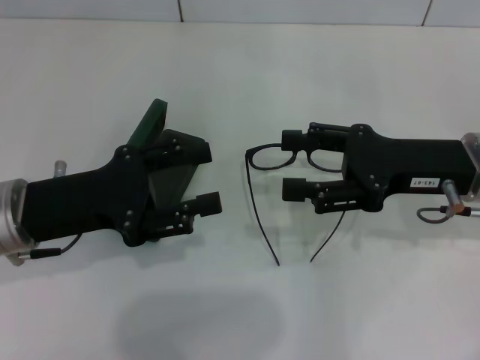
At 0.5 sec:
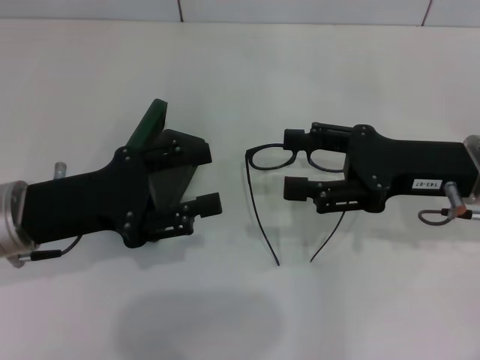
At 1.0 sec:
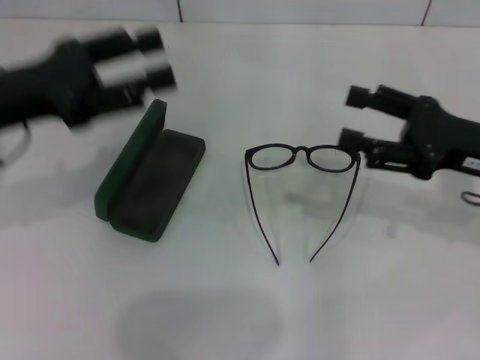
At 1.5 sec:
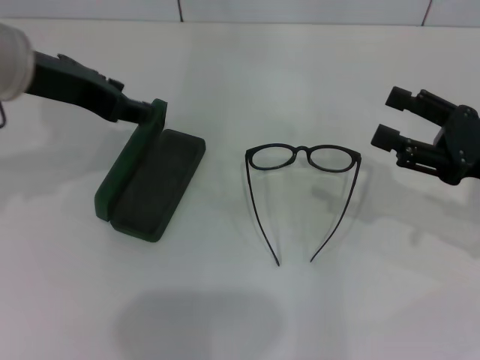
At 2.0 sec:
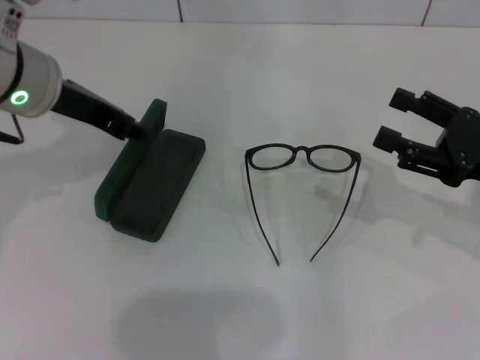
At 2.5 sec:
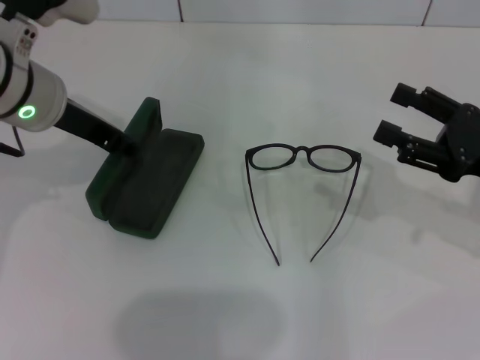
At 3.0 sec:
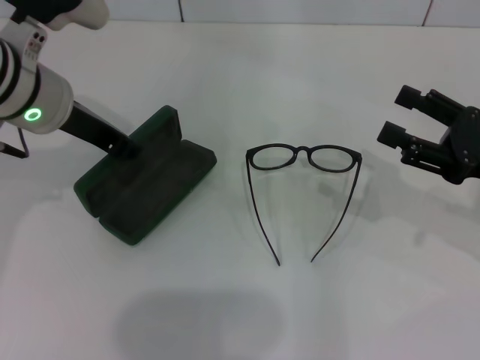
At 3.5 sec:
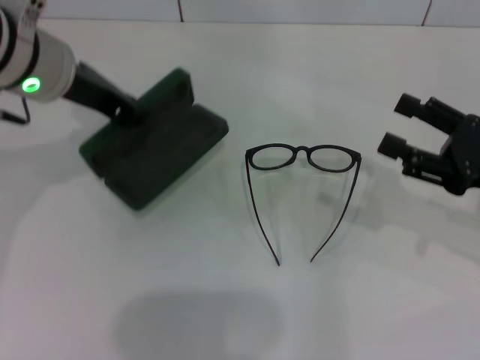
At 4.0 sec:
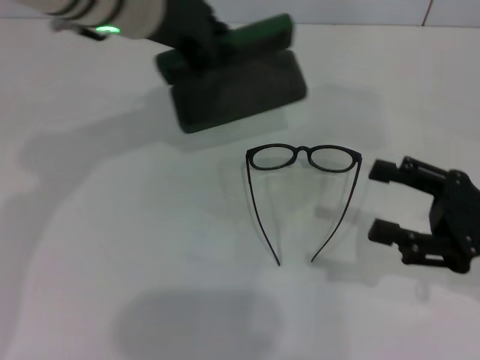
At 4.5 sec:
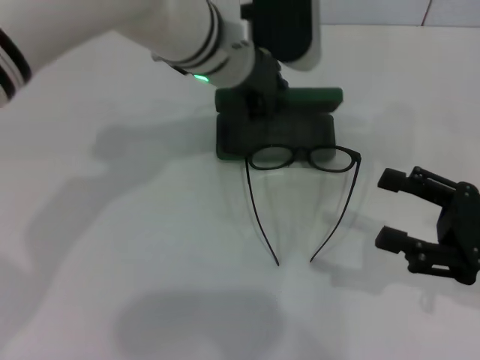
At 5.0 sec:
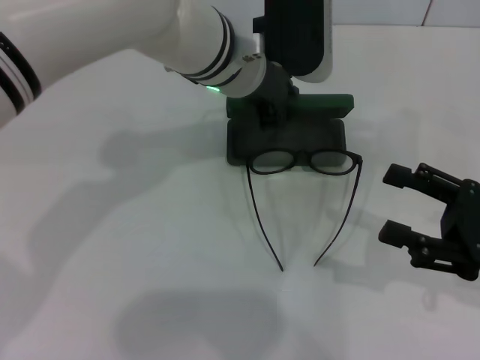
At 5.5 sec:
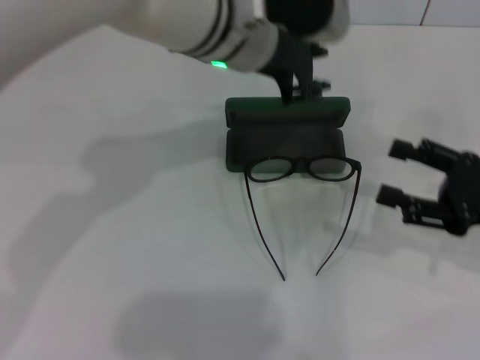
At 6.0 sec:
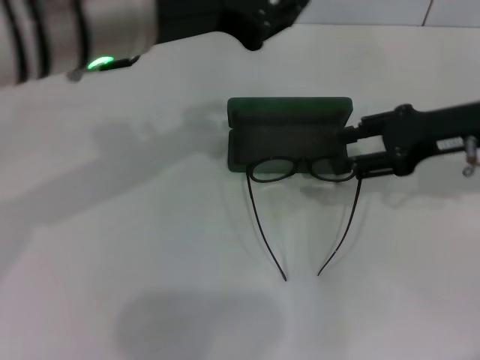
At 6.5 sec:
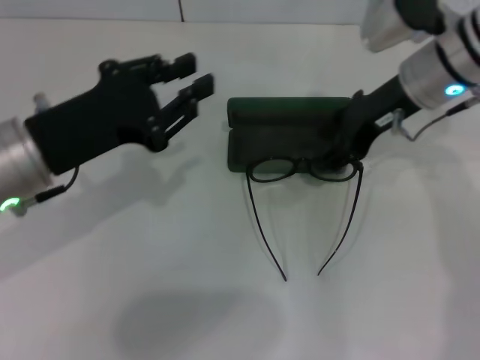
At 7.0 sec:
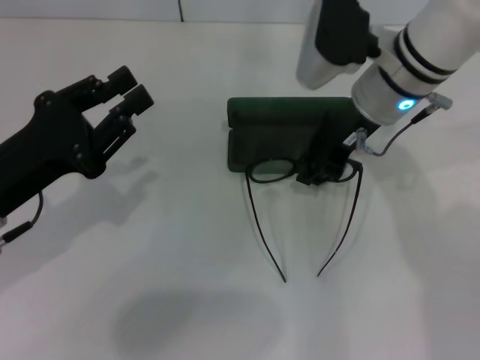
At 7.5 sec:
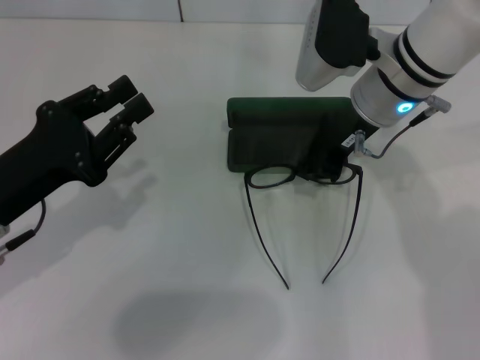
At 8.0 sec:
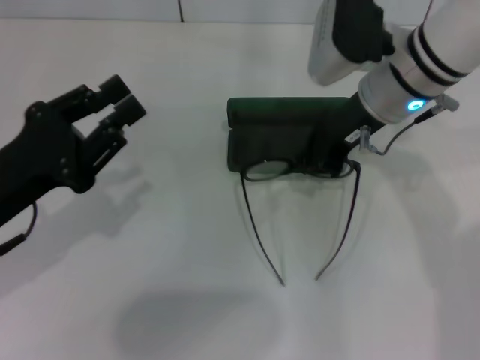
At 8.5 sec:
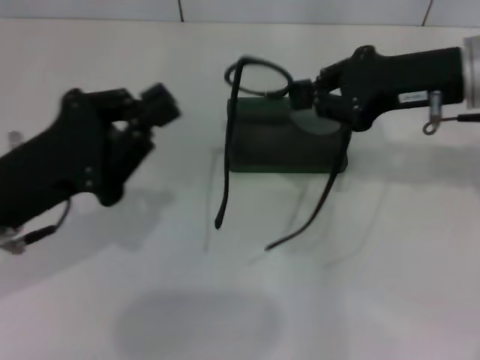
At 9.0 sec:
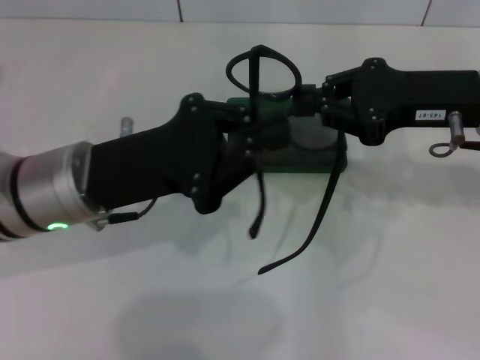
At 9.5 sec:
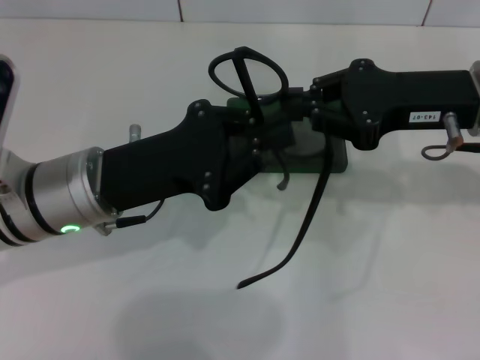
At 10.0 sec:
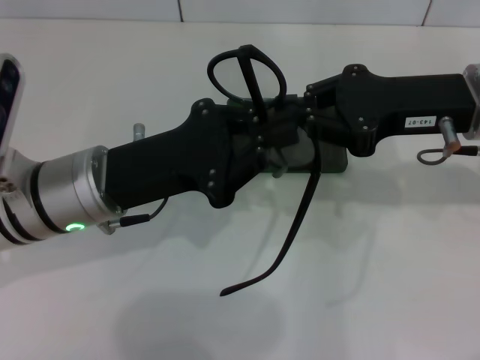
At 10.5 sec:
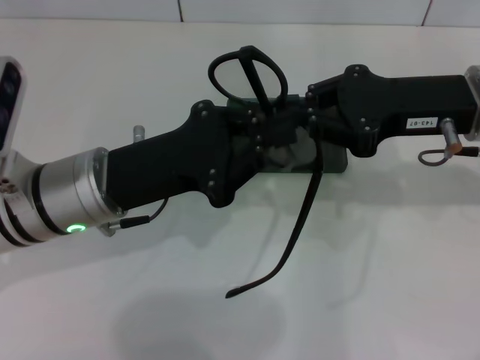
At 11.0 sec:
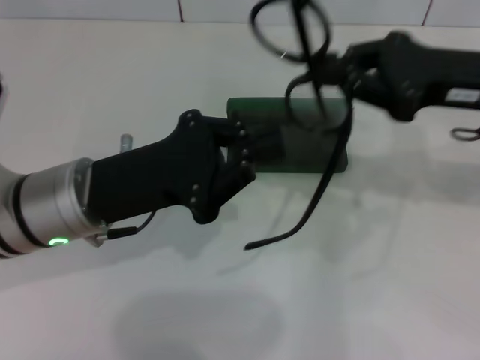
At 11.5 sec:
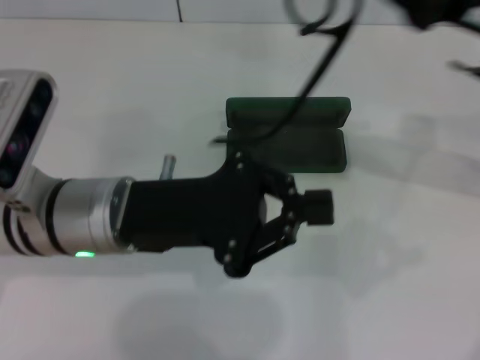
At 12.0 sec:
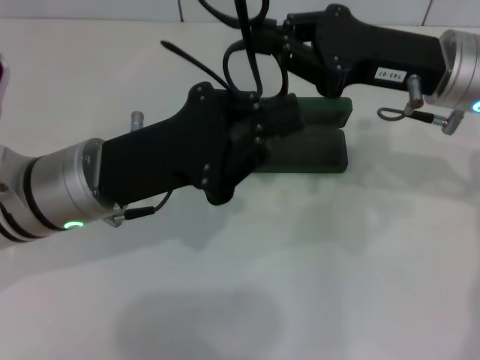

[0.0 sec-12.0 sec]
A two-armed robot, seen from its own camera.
Step, 0.0 sec to 2.5 sec: Grab the glasses case with your left hand.
Step, 3.0 sec to 5.0 sec: Place the glasses case in the center of the table with your left hand.
Step, 5.5 sec to 7.5 sec: Grab the eyeglass frame with your right hand.
0.0 sec to 2.0 sec: The right gripper moves to the right, approximately 10 cm, while the left gripper heads upward and forward, covering roughly 15 cm.
2.0 sec to 4.0 sec: The left gripper travels to the right by approximately 10 cm, and closes its fingers.
4.0 sec to 6.0 sec: The right gripper shifts roughly 15 cm forward and upward. Meanwhile the left gripper heads backward, covering about 10 cm, and goes to the right and returns, roughly 10 cm each way.
6.0 sec to 8.0 sec: The right gripper heads to the left, covering about 15 cm, and closes, while the left gripper goes approximately 20 cm downward, to the left and backward.
8.0 sec to 10.0 sec: The right gripper is displaced to the right and backward by some 10 cm; the left gripper goes about 10 cm to the right and forward, and closes its fingers.

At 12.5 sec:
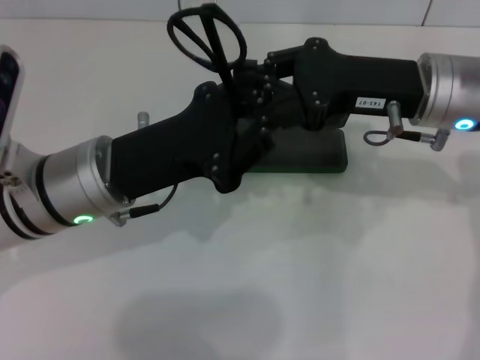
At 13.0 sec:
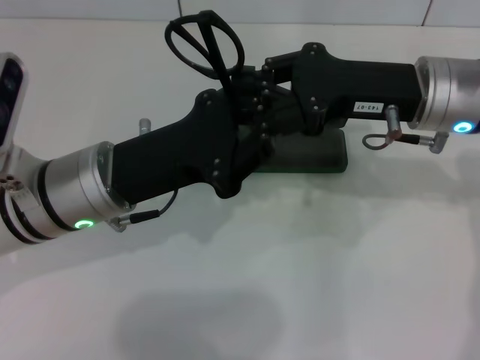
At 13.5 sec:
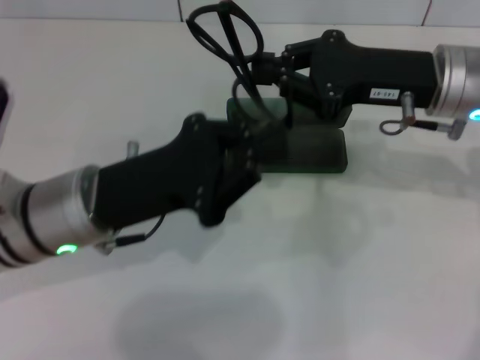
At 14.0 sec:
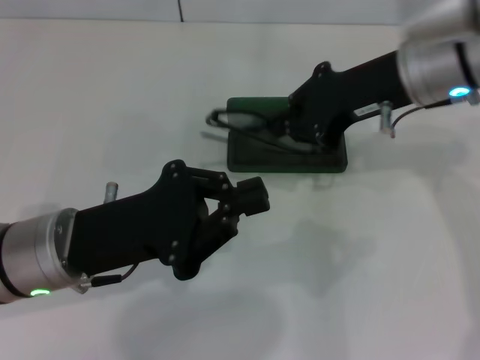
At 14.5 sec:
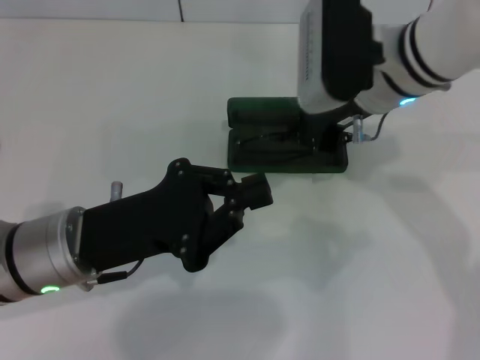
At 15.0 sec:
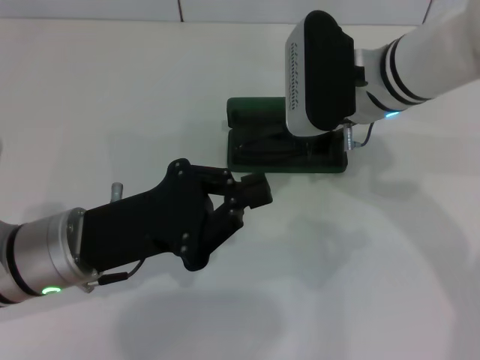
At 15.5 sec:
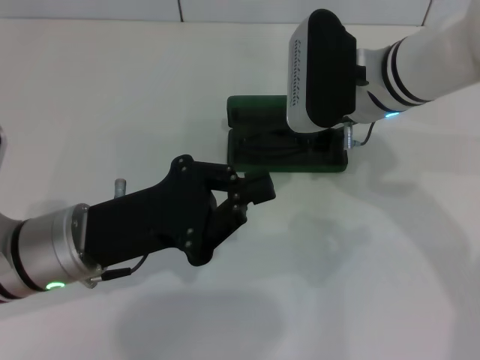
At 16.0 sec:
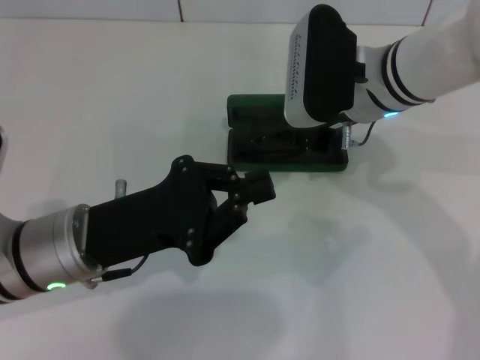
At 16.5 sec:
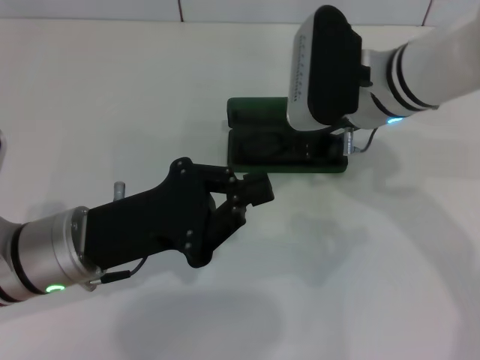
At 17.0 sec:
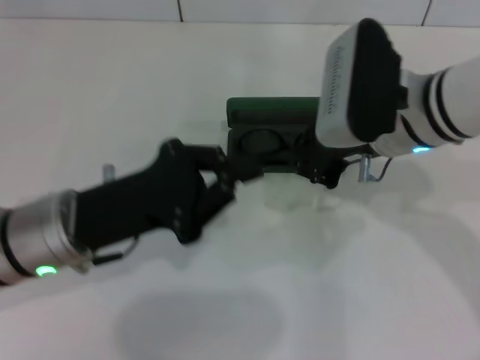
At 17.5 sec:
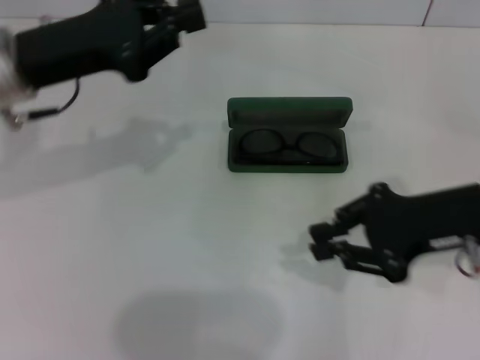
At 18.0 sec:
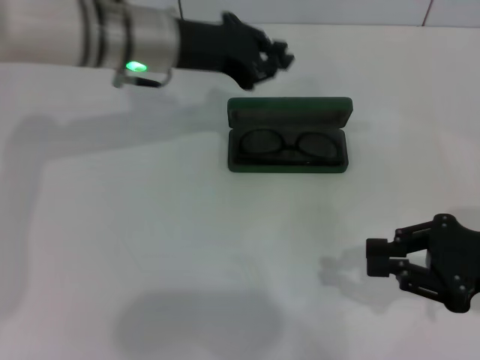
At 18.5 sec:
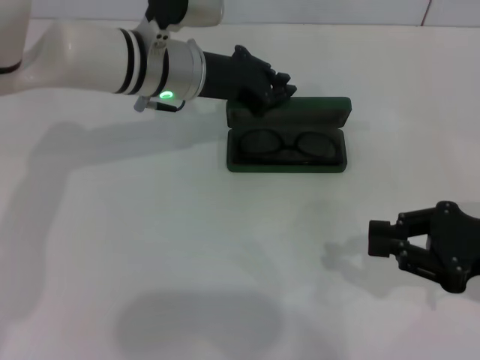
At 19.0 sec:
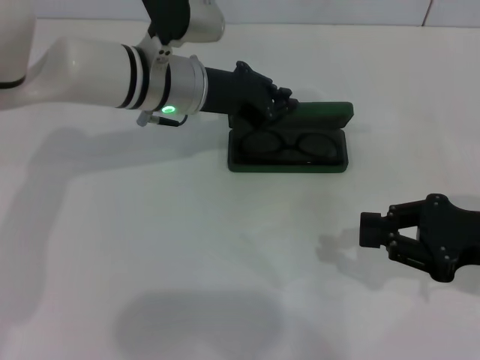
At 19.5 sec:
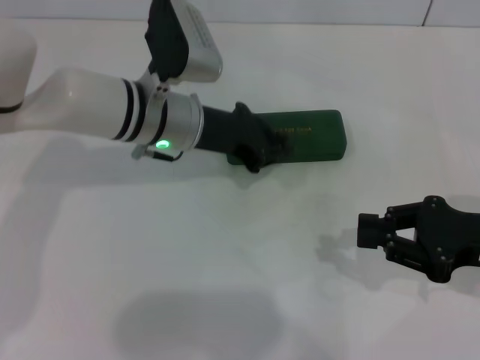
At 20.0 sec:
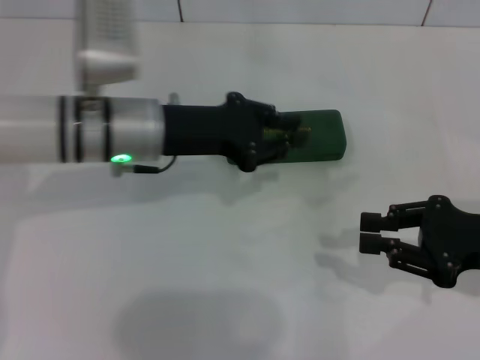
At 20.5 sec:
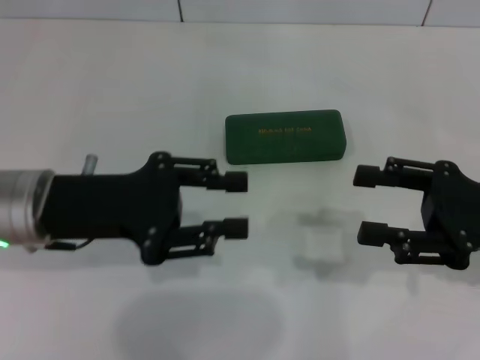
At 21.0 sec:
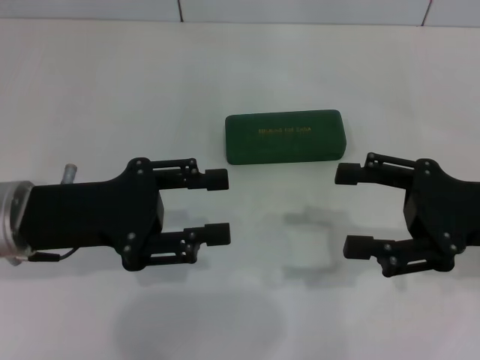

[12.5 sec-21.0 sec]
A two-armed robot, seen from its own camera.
Step, 13.5 sec to 16.0 sec: Put the glasses into the case with your right hand.
Step, 16.5 sec to 19.0 sec: Close the glasses case with your left hand.
12.5 sec to 14.5 sec: The right gripper travels to the left by approximately 5 cm, while the left gripper shifts by roughly 5 cm.
14.5 sec to 16.5 sec: The grippers stay close to where they were, moving slightly.
16.5 sec to 19.0 sec: The left gripper moves forward and to the right, approximately 20 cm. Meanwhile the right gripper goes approximately 20 cm to the right and backward.
19.0 sec to 21.0 sec: The left gripper goes about 20 cm backward and to the left, and opens up. Meanwhile the right gripper opens up.

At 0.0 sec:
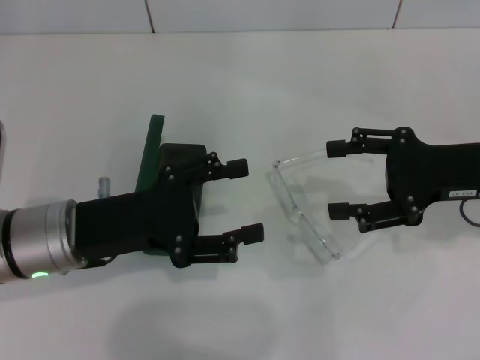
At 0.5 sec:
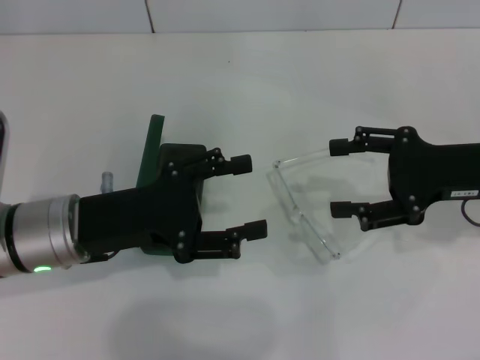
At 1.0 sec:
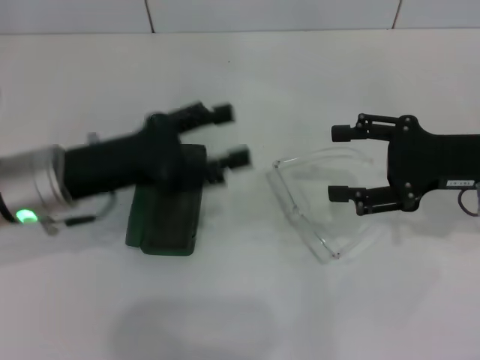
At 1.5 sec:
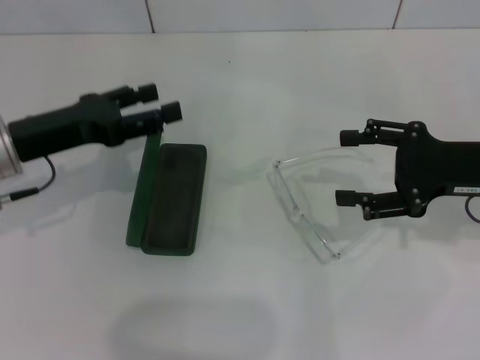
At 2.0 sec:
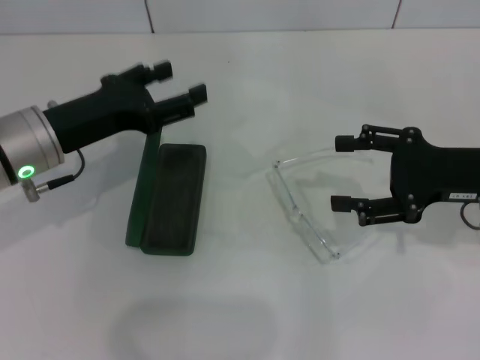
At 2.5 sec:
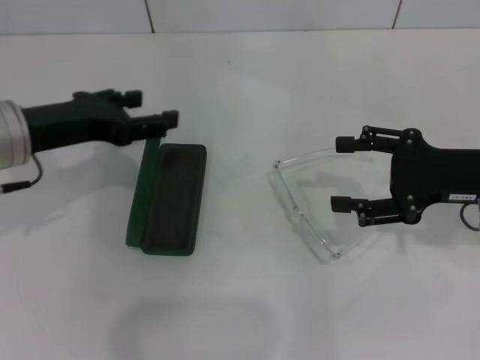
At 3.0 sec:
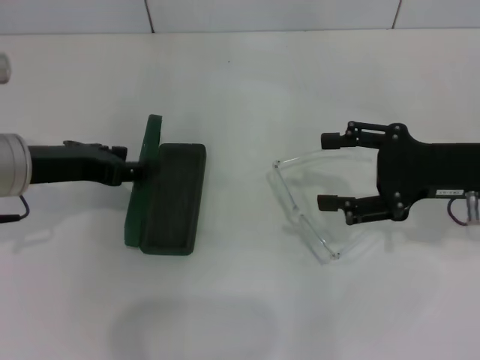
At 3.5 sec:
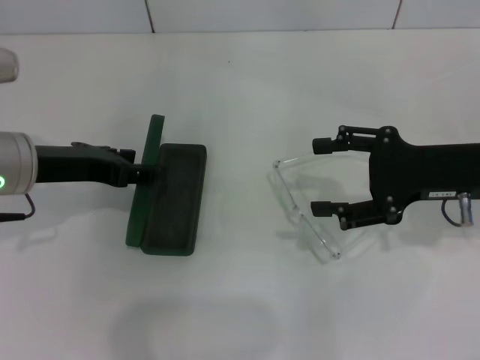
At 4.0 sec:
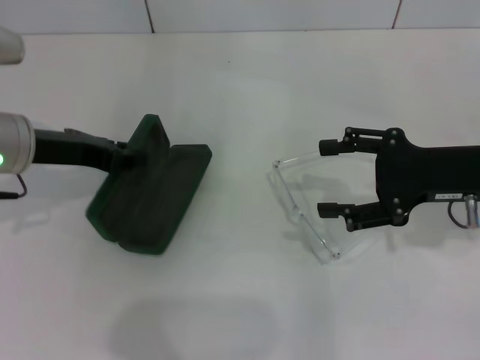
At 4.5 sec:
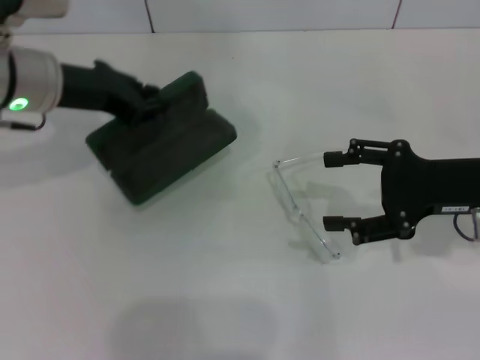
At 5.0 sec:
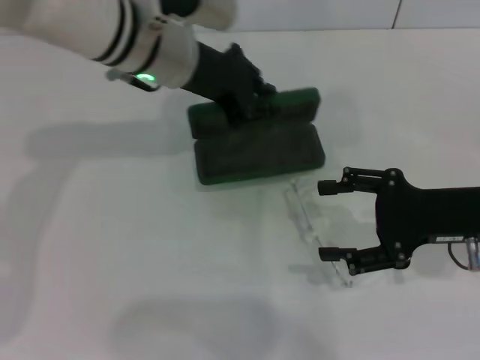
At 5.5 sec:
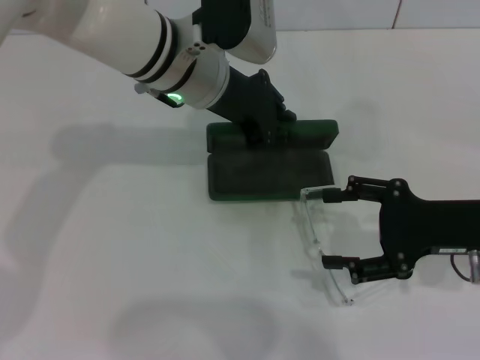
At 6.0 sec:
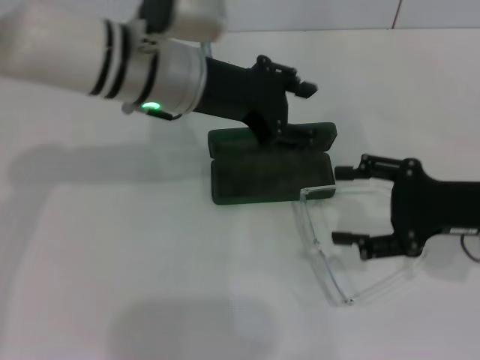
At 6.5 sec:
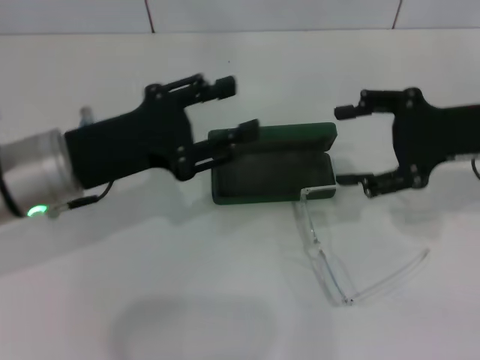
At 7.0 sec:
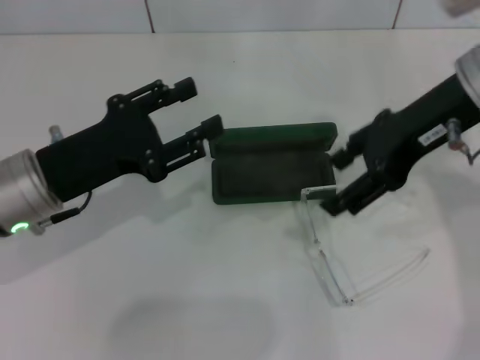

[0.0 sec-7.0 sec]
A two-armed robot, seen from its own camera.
Step, 0.0 sec to 3.5 sec: Grab the glasses case with your left hand.
Step, 4.0 sec to 5.5 sec: Place the glasses case in the center of the table with your left hand.
0.0 sec to 2.0 sec: The left gripper travels forward by some 5 cm.
3.5 sec to 5.0 sec: The left gripper shifts roughly 15 cm to the right and forward, and closes.
5.0 sec to 7.0 sec: The left gripper is displaced backward, to the left and downward by some 20 cm, and opens, while the right gripper goes approximately 15 cm upward and to the left.
